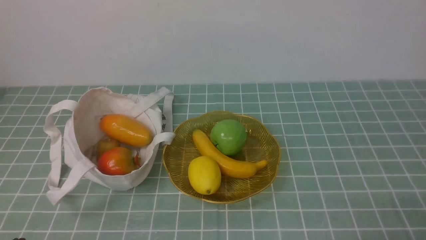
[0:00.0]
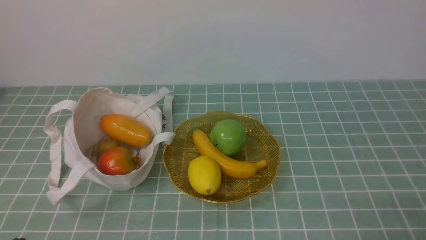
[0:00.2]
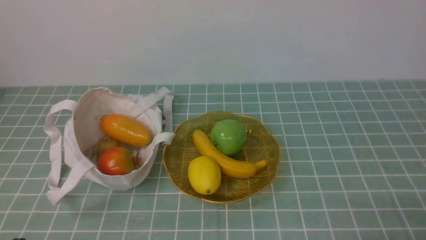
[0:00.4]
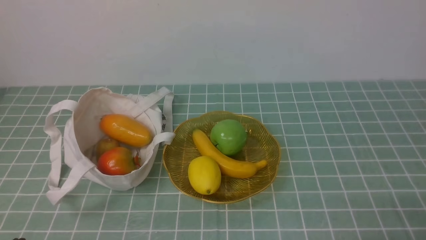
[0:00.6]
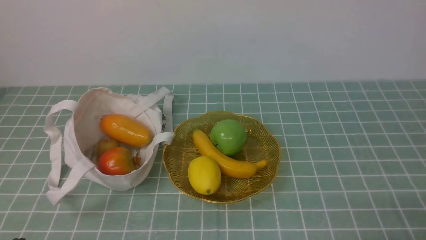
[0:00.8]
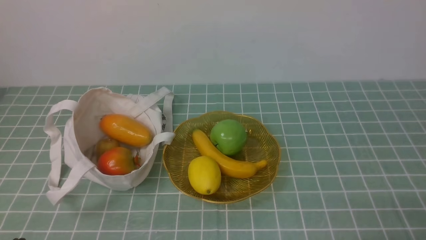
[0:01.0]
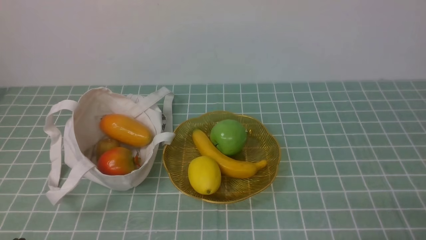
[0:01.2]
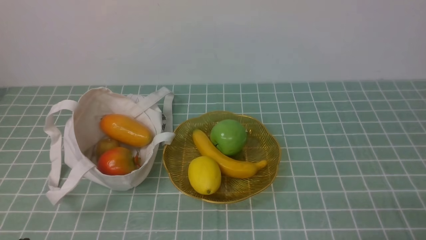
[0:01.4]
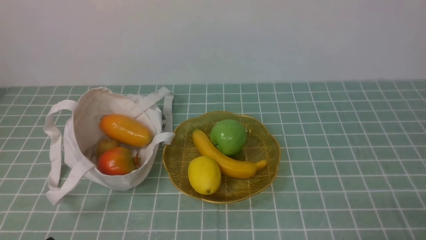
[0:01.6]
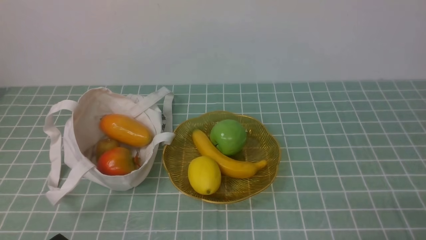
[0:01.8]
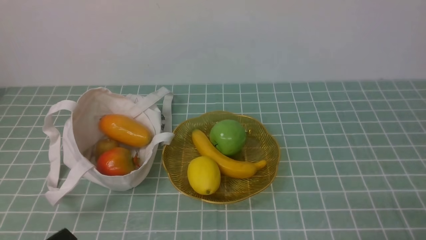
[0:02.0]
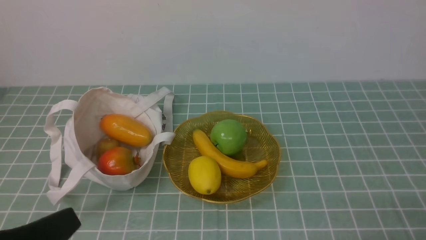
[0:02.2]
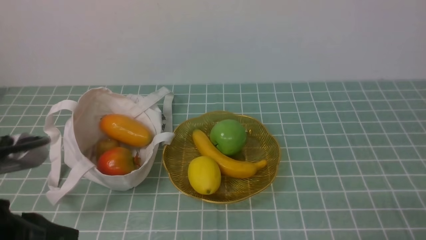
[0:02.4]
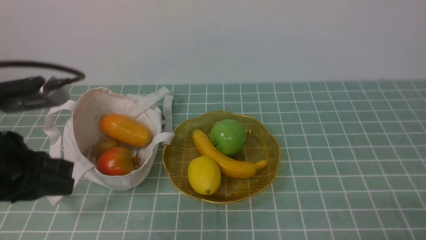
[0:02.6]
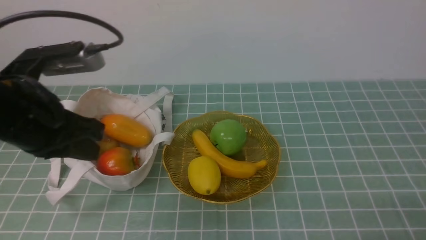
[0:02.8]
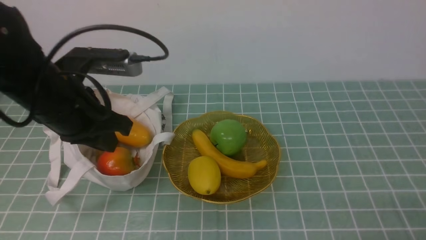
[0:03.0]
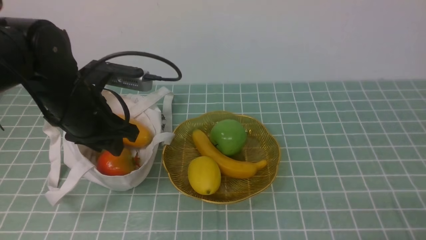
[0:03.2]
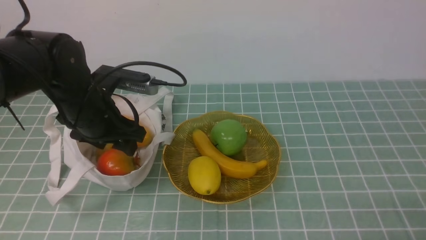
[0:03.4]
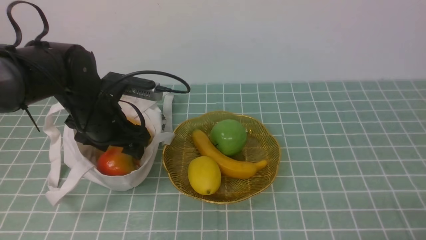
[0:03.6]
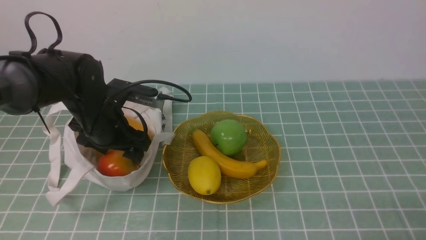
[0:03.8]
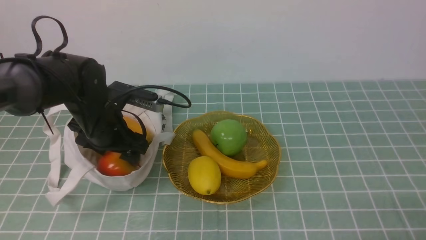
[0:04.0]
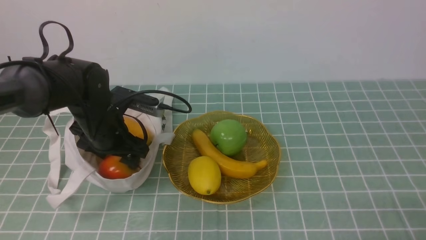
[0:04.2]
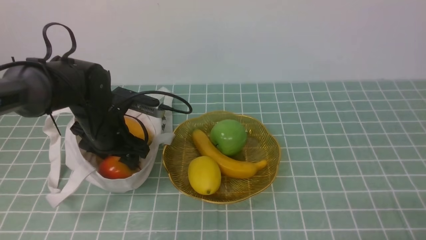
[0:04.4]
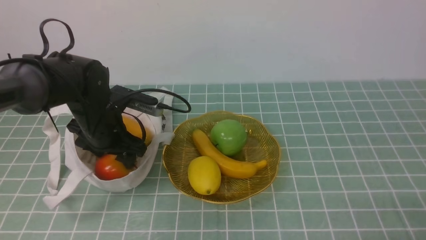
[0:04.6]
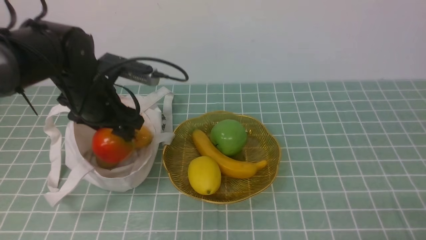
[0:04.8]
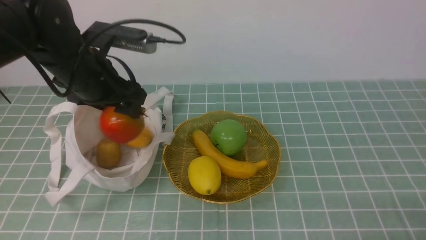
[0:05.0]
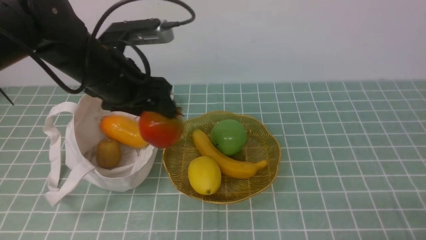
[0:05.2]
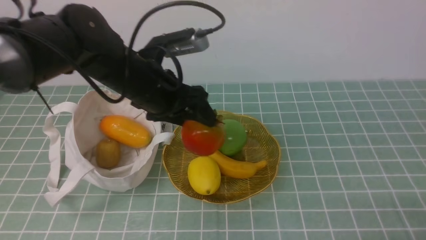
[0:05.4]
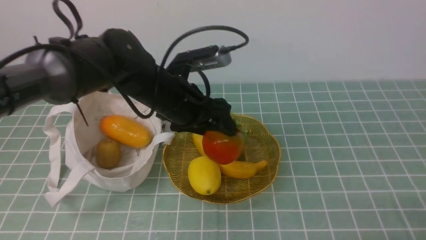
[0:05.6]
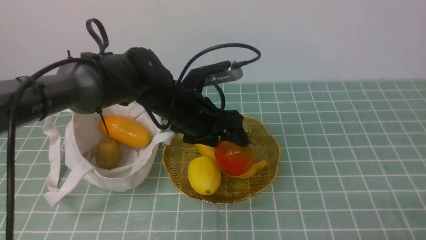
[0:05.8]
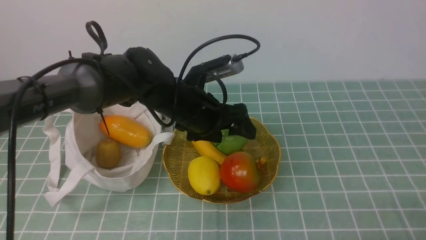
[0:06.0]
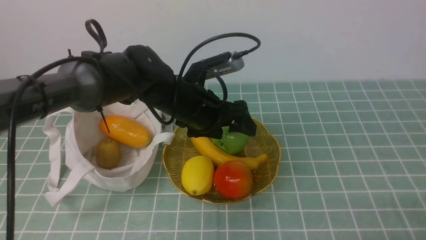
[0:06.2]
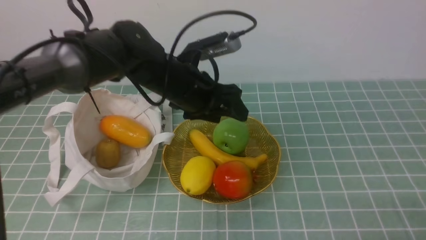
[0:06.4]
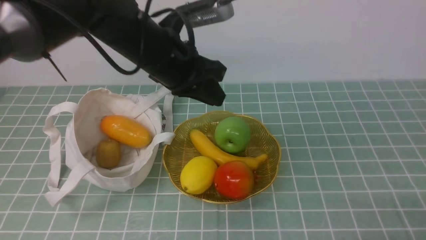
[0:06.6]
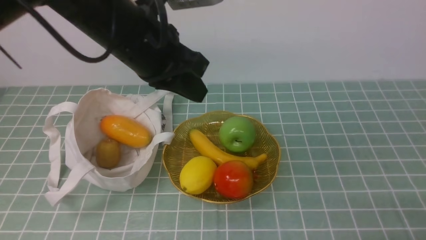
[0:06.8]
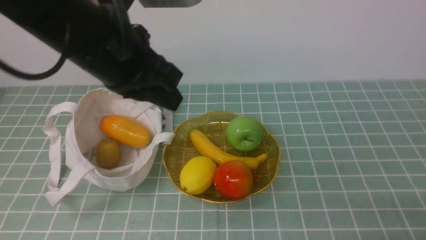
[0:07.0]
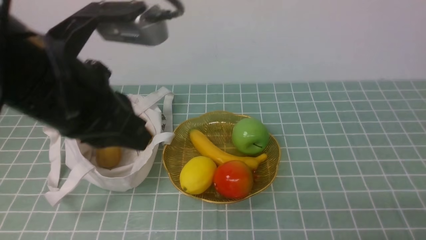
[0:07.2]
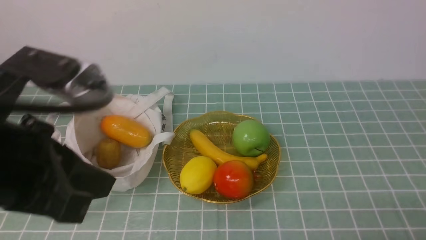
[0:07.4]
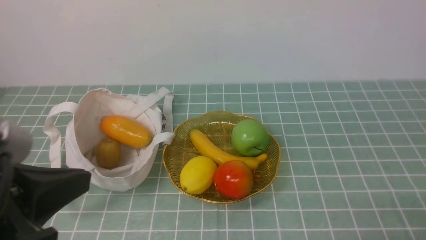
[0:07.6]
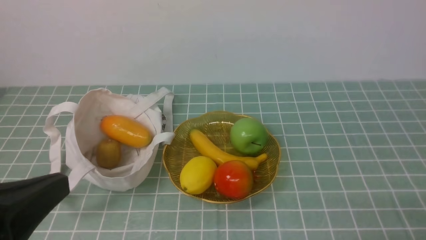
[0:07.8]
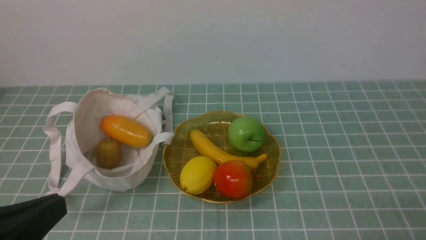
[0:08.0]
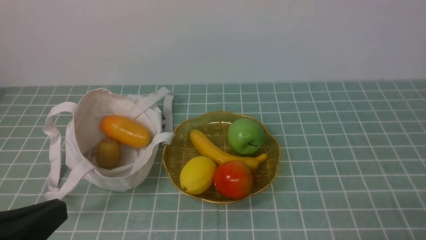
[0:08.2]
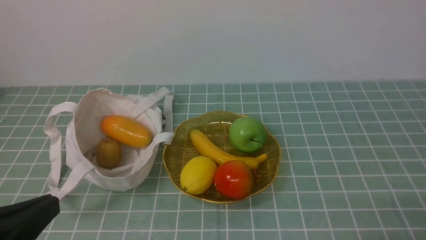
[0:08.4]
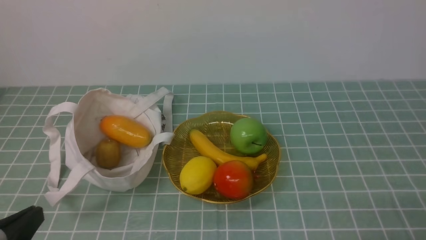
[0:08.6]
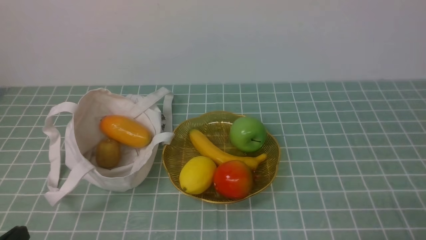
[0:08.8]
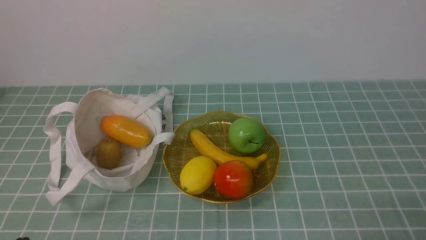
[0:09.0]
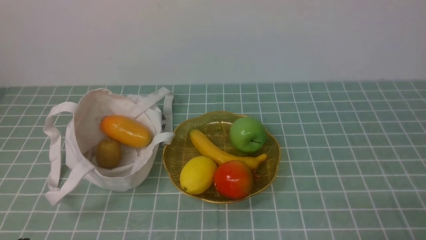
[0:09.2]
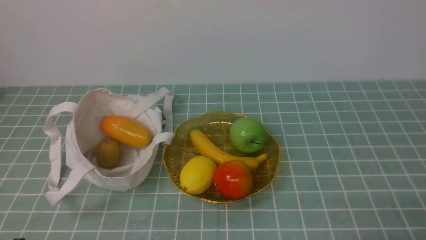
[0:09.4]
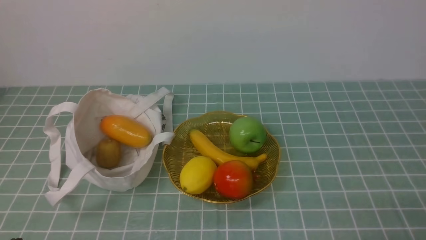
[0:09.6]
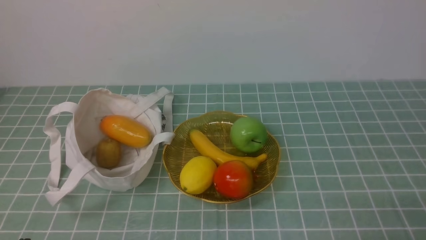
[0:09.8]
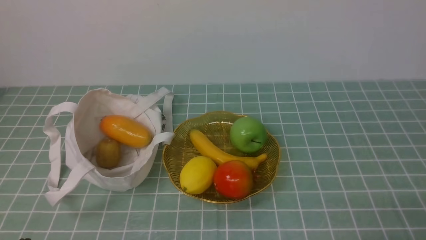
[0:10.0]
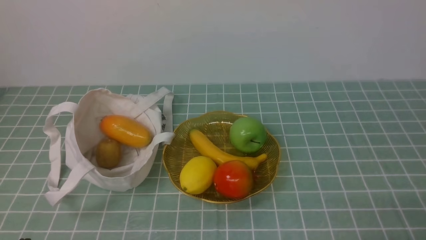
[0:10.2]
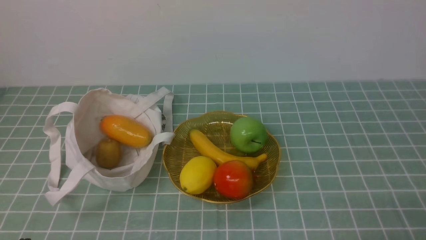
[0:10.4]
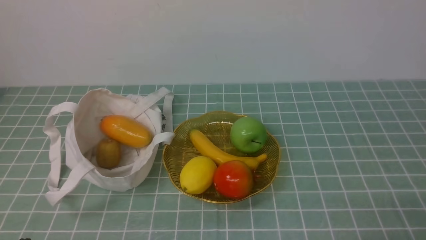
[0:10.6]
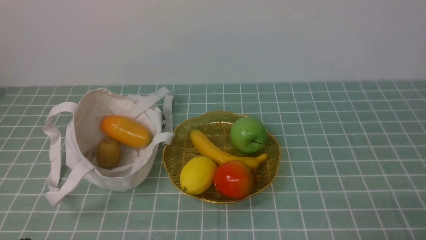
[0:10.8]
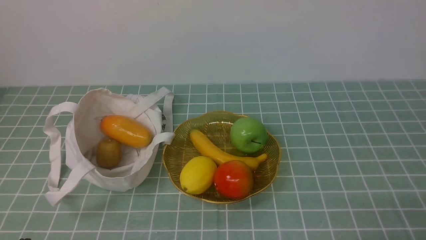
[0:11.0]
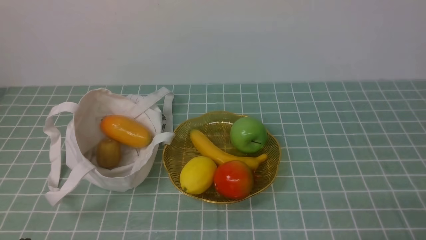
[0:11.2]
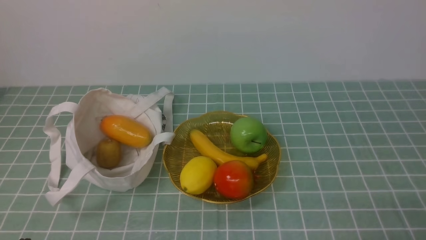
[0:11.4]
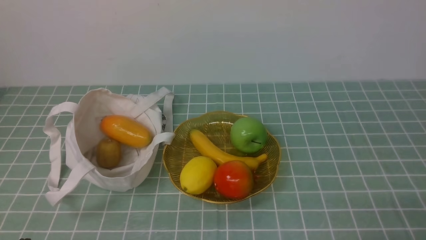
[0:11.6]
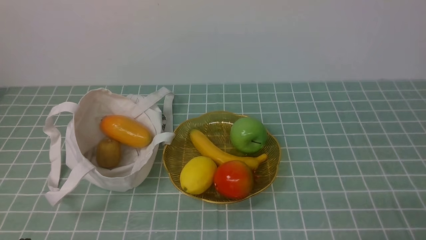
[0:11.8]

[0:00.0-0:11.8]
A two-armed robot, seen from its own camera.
Step, 0:00.0 to 0:04.4: use the left arm to grab a pomegranate from the bag.
Step, 0:04.6 to 0:06.0: use the left arm to put the pomegranate into the empty plate on the right.
0:01.4 to 0:03.0: The left gripper shifts about 25 cm forward and upward.
0:03.0 to 0:04.4: The left gripper is displaced downward and forward by about 15 cm, and opens its fingers.
0:04.4 to 0:06.0: The left gripper is displaced to the right by some 15 cm.
0:06.0 to 0:07.4: The left gripper goes about 25 cm backward, upward and to the left, and closes.
0:07.4 to 0:08.8: The left gripper moves downward, backward and to the left, about 20 cm.
0:10.4 to 0:11.8: The two grippers keep their place.
